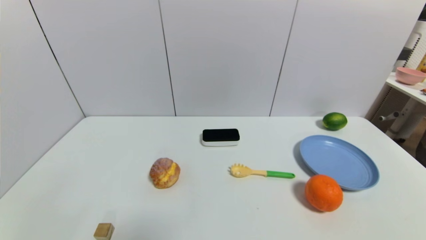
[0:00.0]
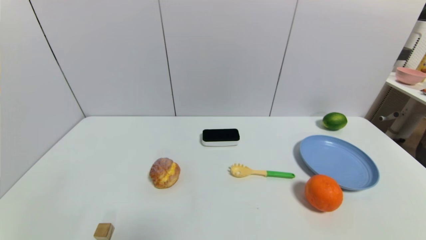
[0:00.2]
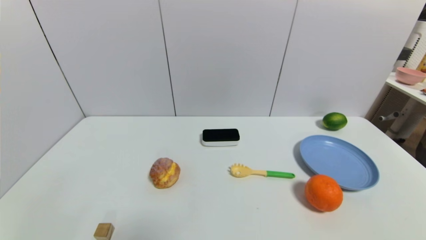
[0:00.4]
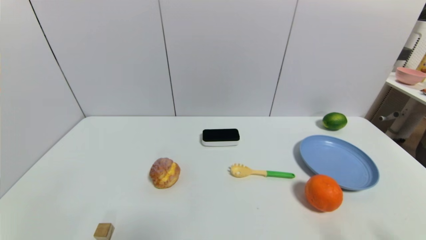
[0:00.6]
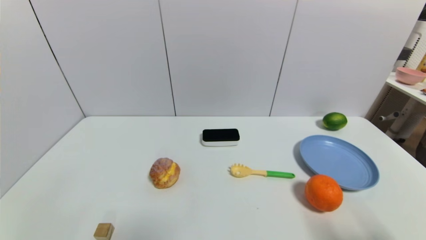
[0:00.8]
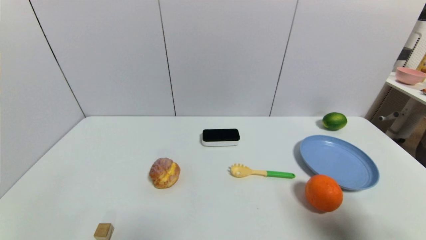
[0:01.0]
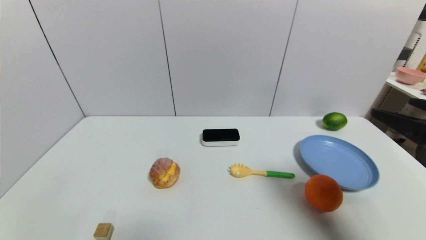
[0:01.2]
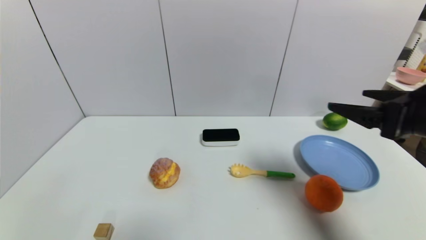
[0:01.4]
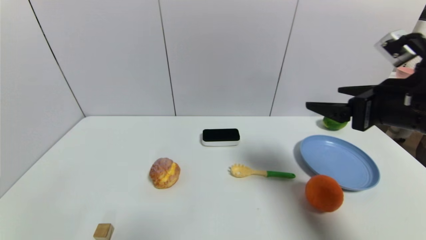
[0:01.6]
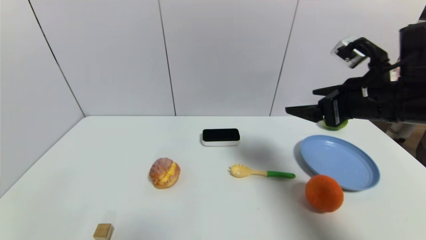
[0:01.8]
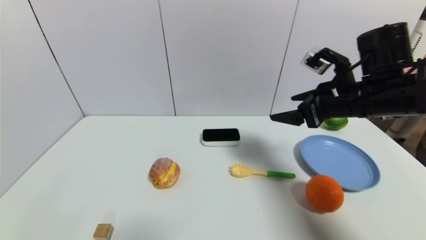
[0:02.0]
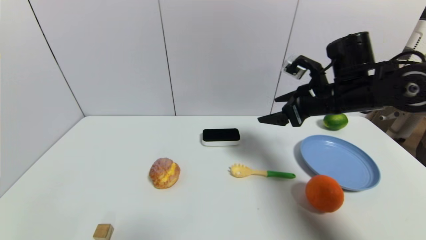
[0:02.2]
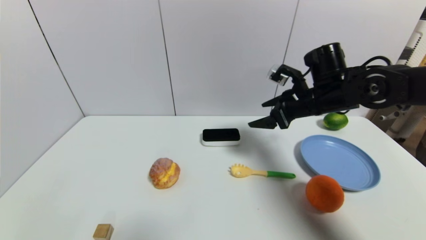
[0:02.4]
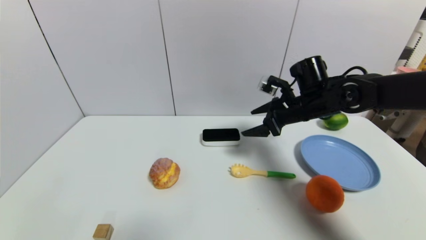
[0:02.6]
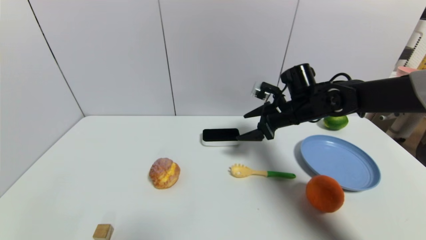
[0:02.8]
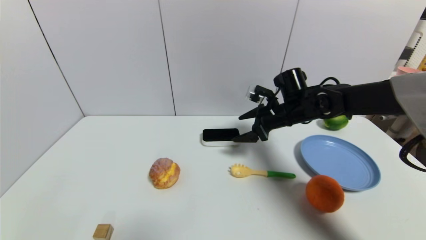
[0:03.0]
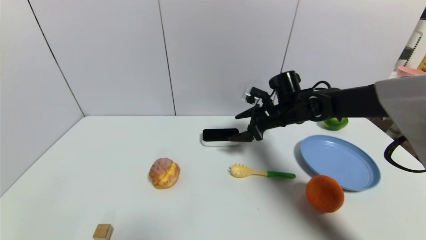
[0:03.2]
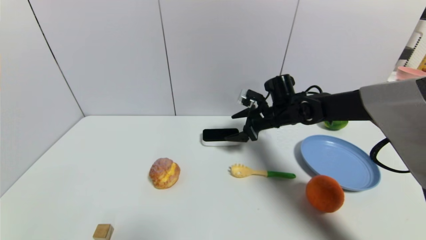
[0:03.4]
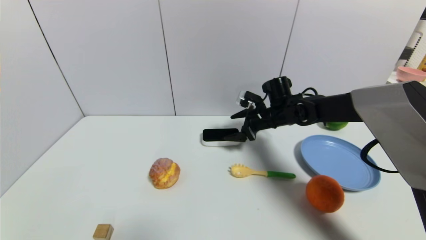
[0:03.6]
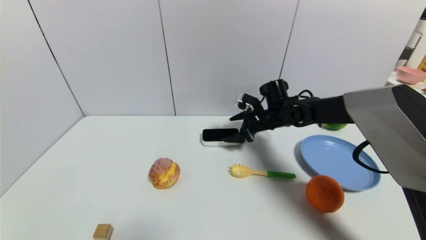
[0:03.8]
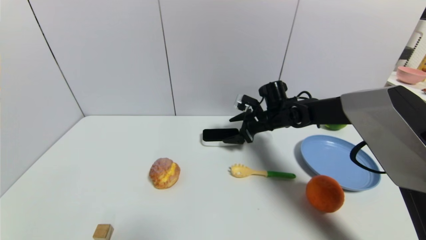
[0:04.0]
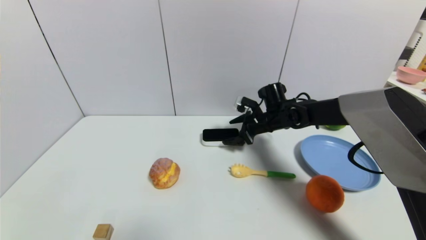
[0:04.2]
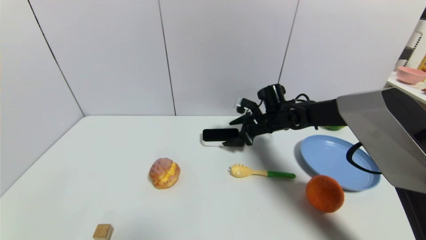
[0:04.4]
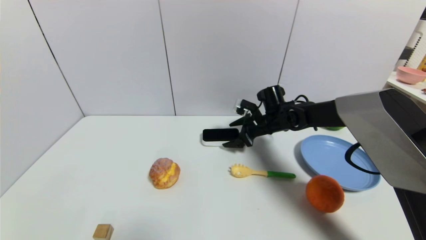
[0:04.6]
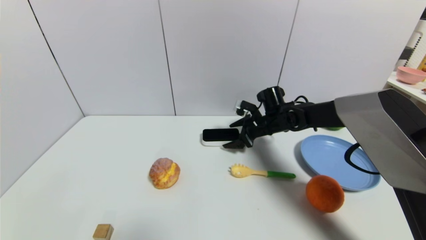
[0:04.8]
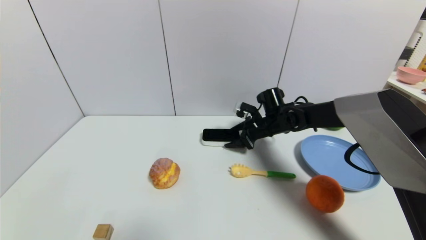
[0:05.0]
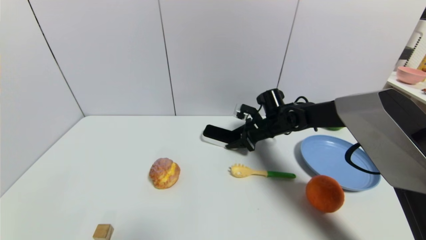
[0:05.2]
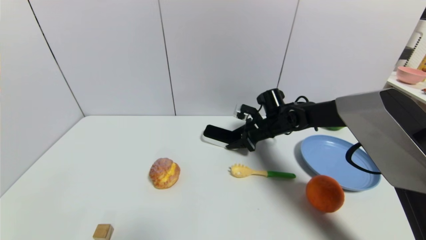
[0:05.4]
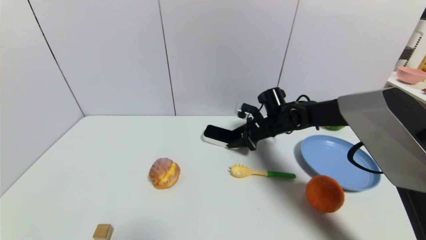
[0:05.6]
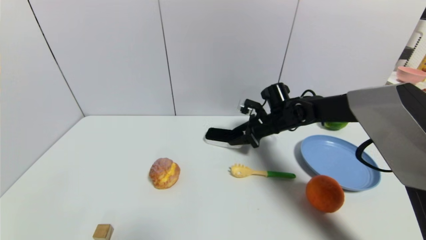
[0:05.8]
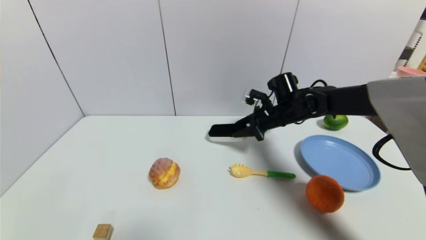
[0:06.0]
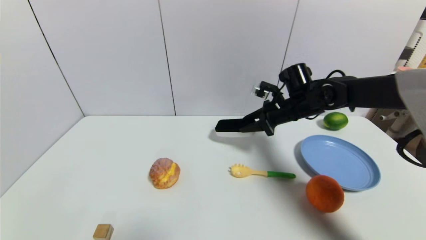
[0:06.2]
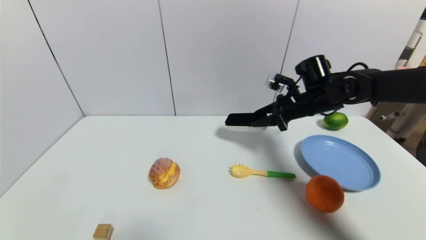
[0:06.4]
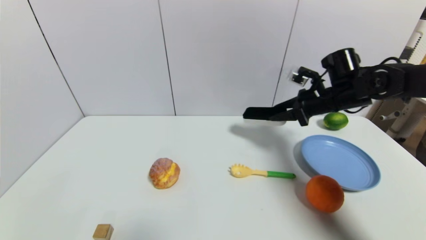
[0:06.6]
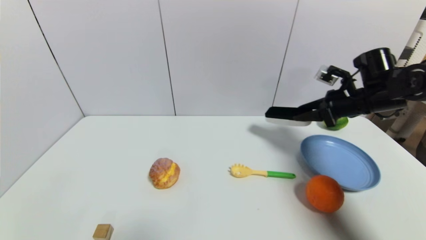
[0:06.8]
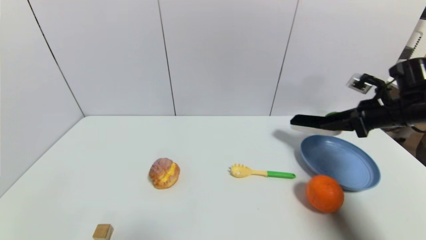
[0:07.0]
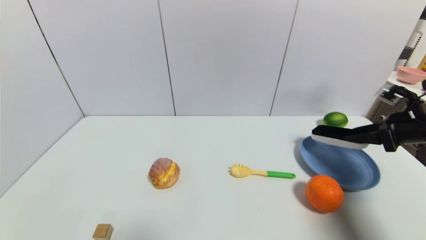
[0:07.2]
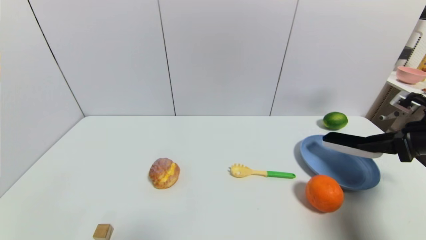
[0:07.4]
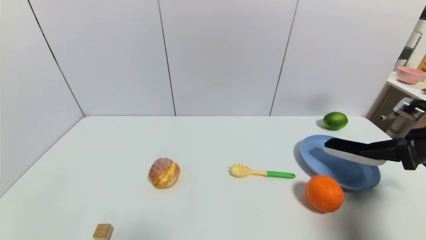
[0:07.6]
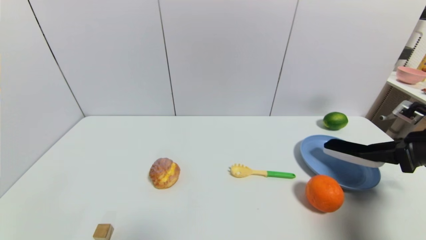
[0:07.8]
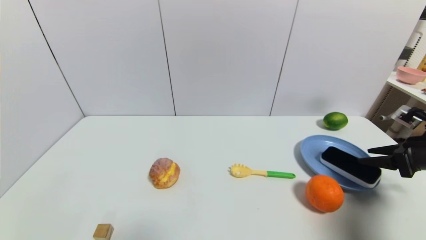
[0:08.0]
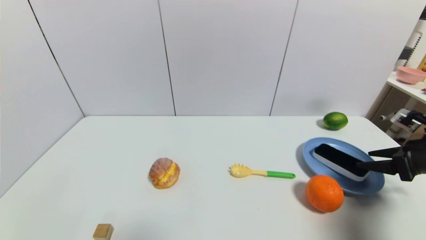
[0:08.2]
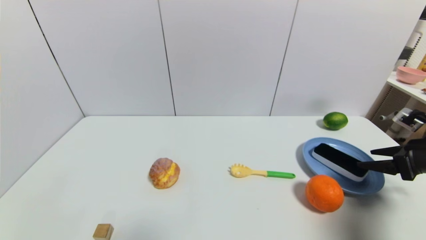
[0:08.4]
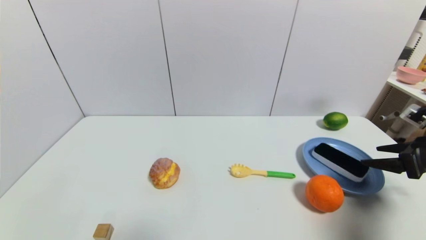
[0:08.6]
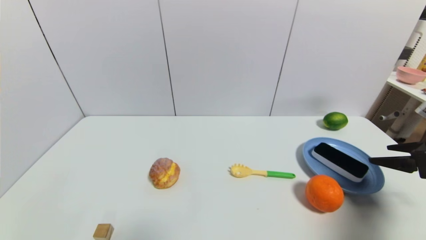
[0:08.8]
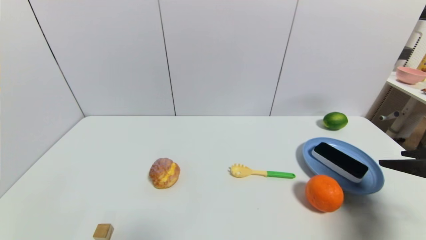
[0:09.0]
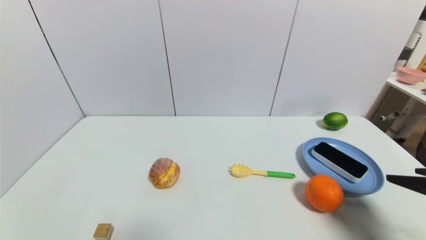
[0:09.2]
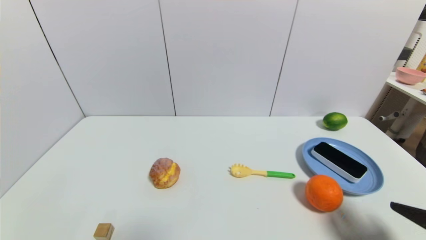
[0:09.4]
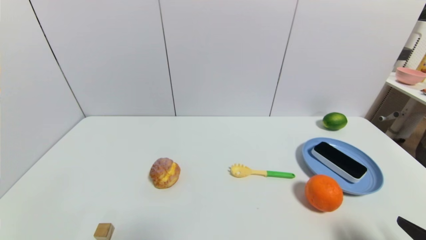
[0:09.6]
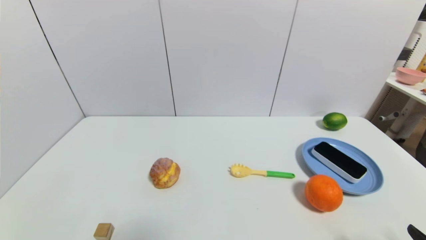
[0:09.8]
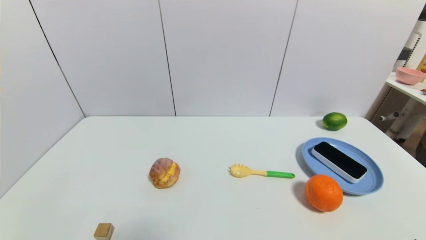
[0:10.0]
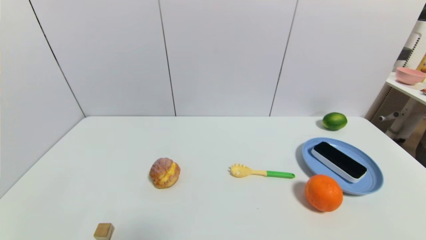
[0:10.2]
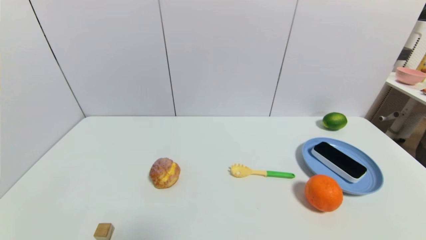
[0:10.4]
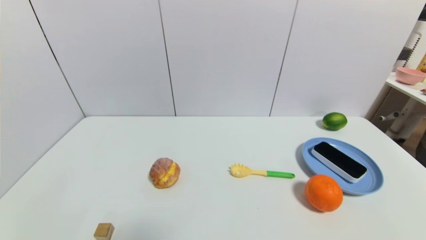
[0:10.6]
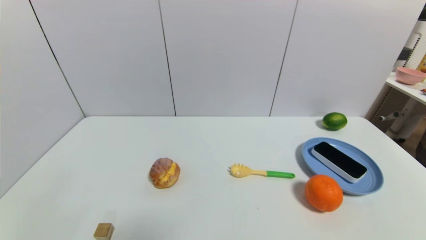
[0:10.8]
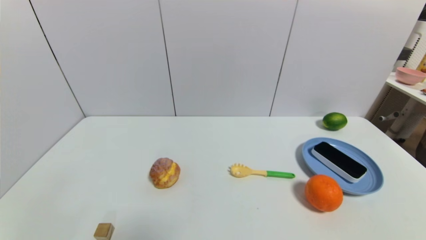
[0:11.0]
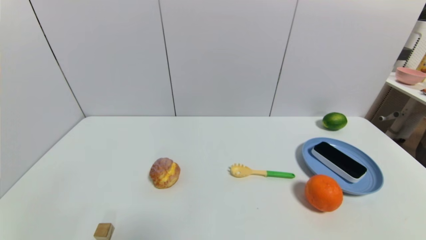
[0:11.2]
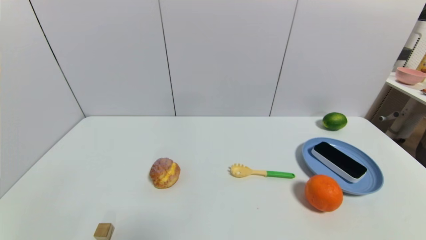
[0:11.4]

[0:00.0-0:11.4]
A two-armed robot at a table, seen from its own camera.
Task of the whole recording: use a gripper to pick the target object and place on the blue plate.
Step, 0:00.0 to 0:05.0: Grasp the blackboard erasure with the right gripper.
Step, 0:05.2 to 0:09.2: Place the blackboard erasure on the blue plate with the right gripper.
0:00.0 to 0:01.4: The right gripper moves forward and upward, some 30 cm.
0:01.4 to 0:02.8: The right gripper shifts roughly 25 cm forward, to the left and downward.
0:02.8 to 0:04.2: The right gripper heads downward and forward, covering roughly 10 cm.
0:04.2 to 0:05.6: The right gripper closes up.
0:05.6 to 0:07.2: The right gripper shifts some 30 cm to the right and backward.
0:07.2 to 0:08.6: The right gripper travels backward by about 5 cm, and opens up.
0:08.6 to 0:10.0: The right gripper is displaced backward by some 25 cm.
0:10.0 to 0:11.4: The grippers stay close to where they were, moving slightly.

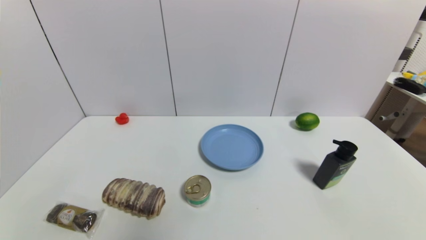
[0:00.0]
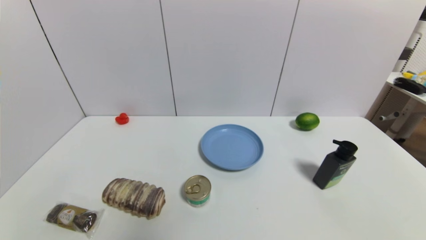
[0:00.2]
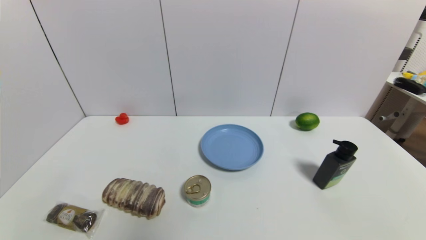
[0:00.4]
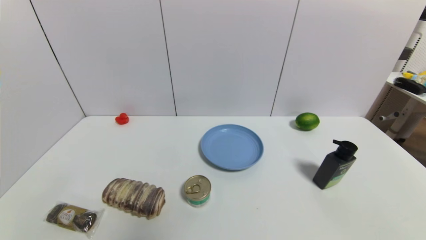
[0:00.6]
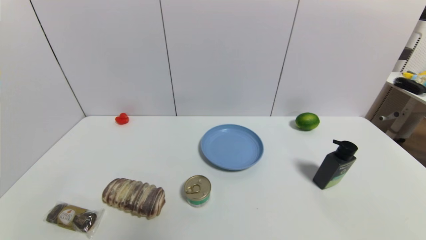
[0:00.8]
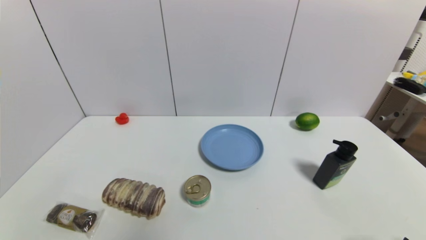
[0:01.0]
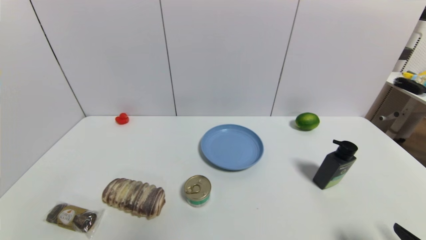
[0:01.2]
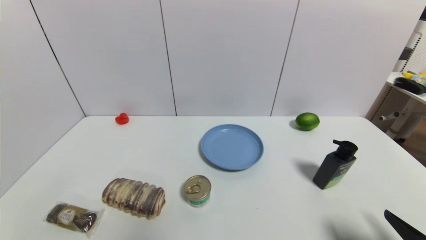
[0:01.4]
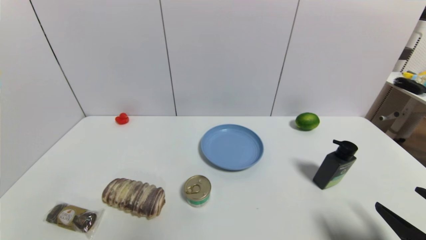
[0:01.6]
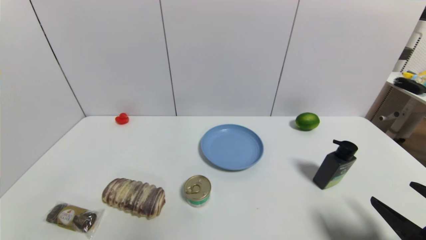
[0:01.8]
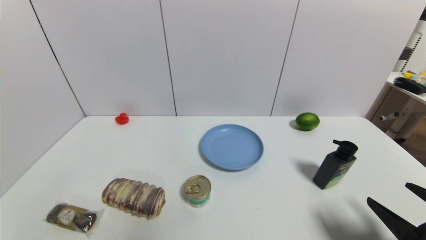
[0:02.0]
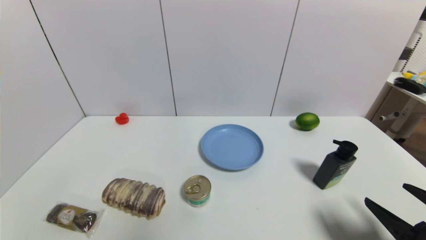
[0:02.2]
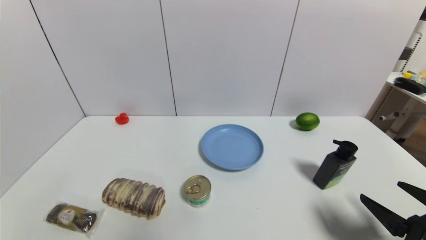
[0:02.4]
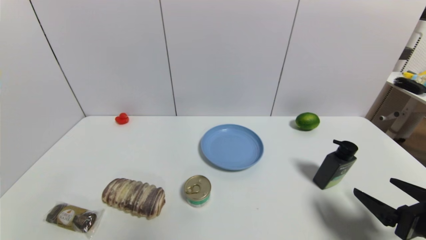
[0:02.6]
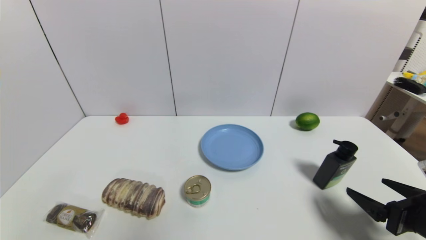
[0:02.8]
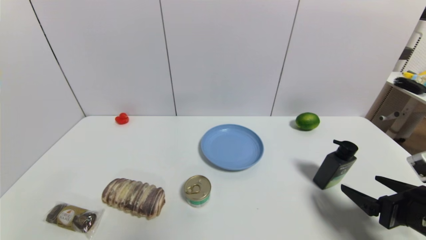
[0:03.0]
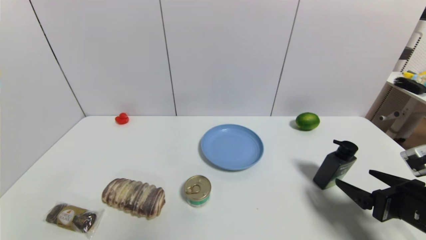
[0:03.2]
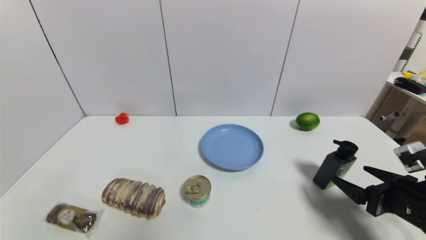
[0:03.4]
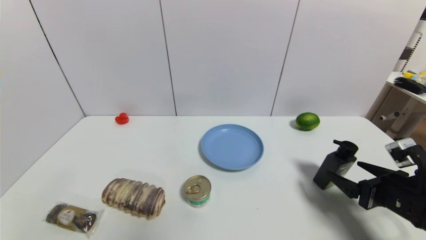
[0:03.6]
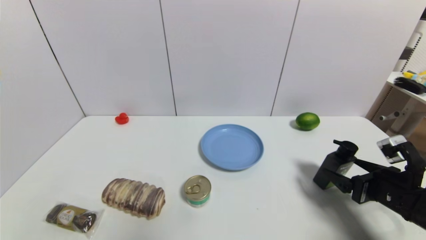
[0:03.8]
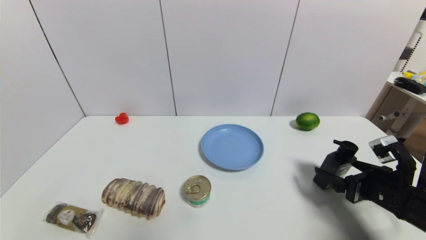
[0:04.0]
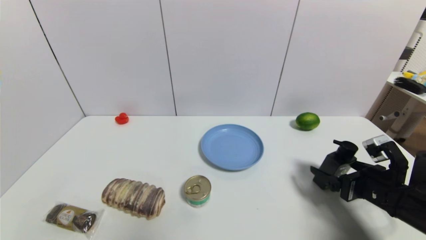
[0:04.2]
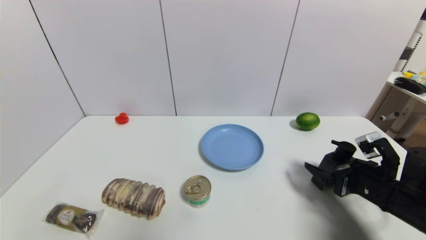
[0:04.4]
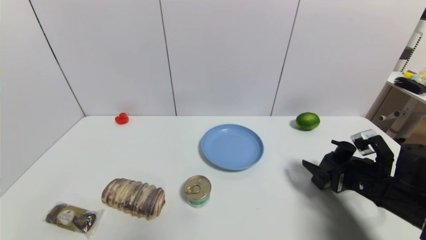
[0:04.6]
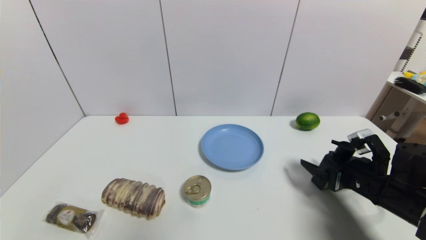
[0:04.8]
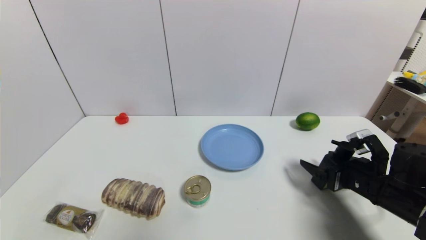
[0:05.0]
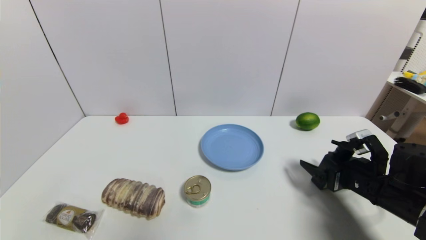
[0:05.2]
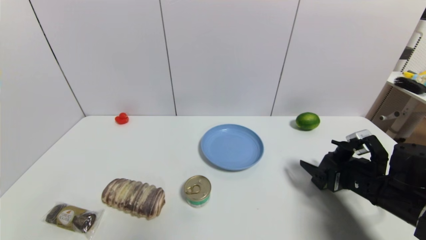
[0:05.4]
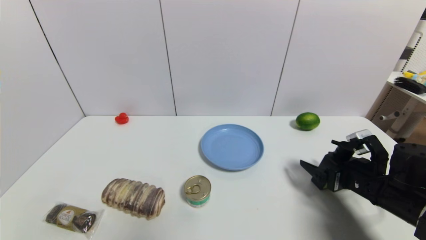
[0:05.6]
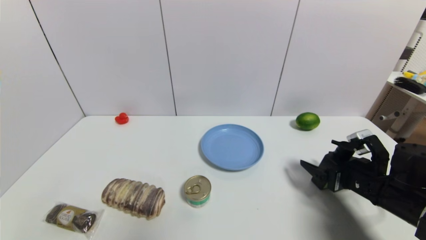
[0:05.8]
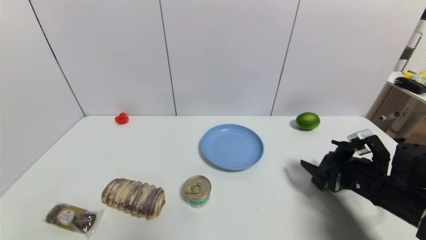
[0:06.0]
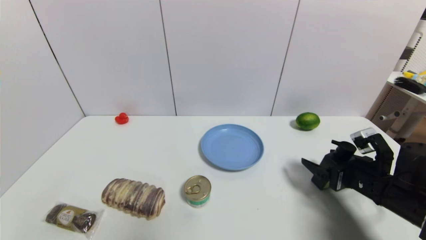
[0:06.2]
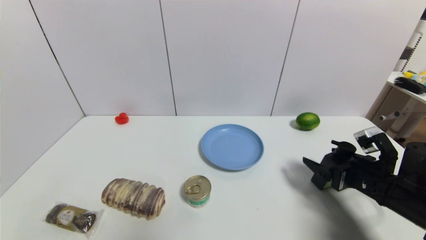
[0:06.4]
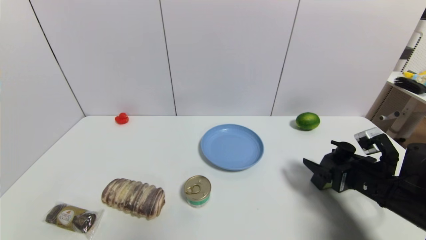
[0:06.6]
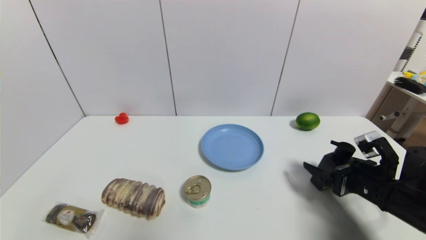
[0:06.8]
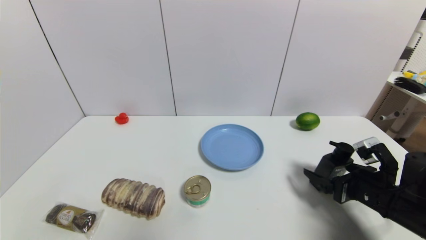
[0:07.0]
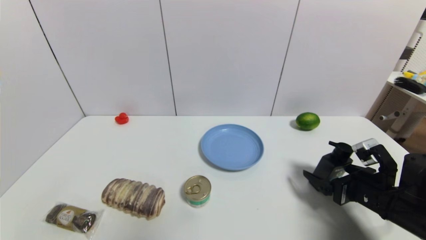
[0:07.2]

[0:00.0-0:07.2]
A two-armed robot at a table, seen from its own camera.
Task of the whole recording: use a gripper to pick the target object and place on the blue plate.
0:00.0 to 0:01.4: The right gripper heads forward and upward, covering roughly 10 cm.
0:01.4 to 0:02.8: The right gripper travels forward by approximately 5 cm.
0:02.8 to 0:04.4: The right gripper is displaced forward by approximately 10 cm.
0:04.4 to 0:07.2: The grippers move only a little.
